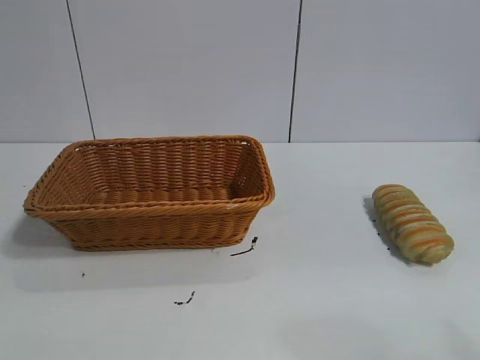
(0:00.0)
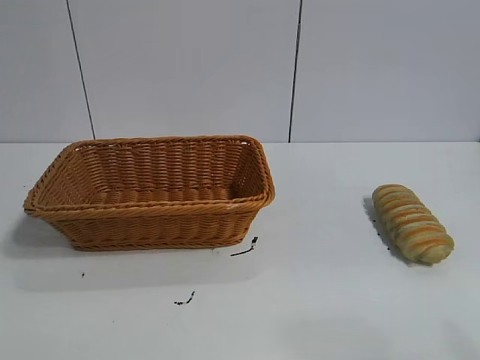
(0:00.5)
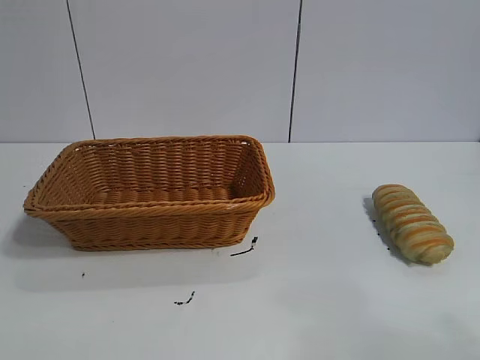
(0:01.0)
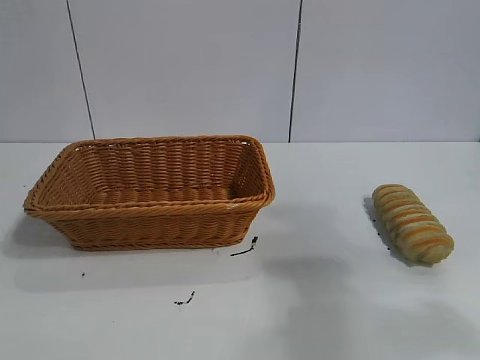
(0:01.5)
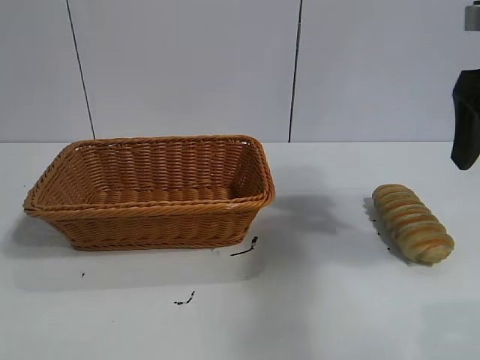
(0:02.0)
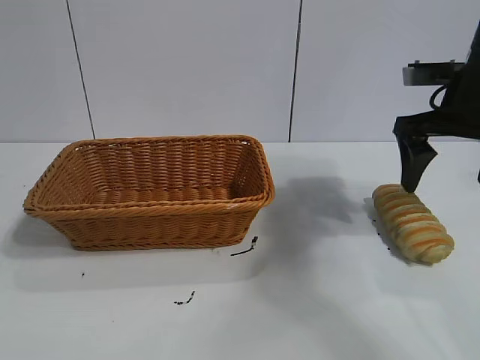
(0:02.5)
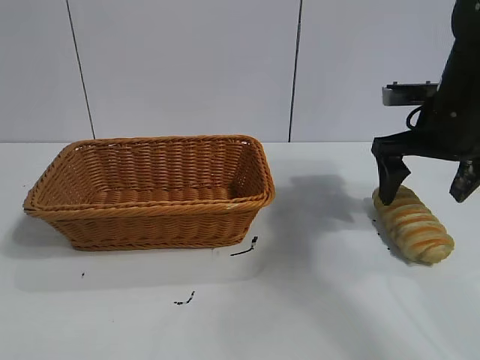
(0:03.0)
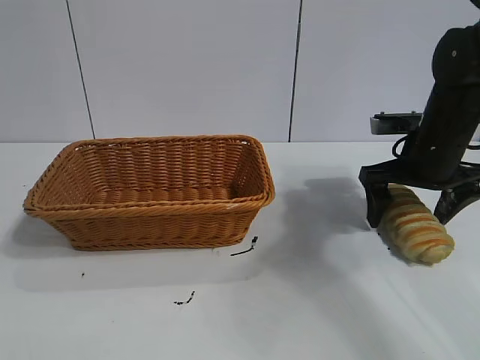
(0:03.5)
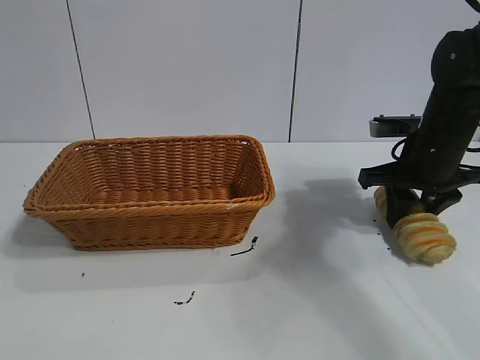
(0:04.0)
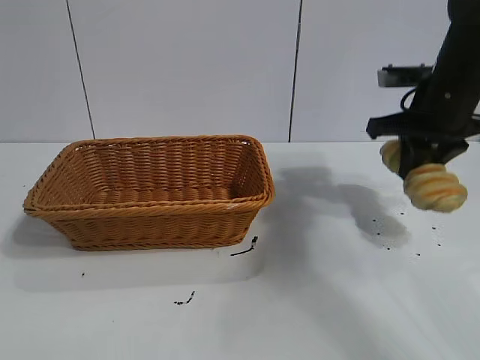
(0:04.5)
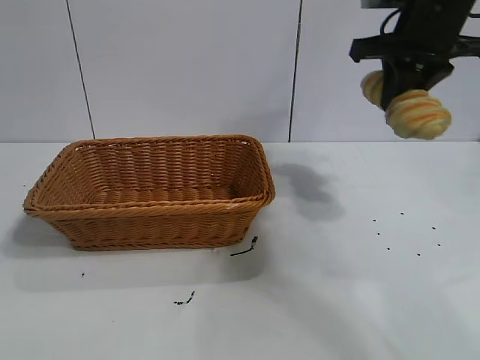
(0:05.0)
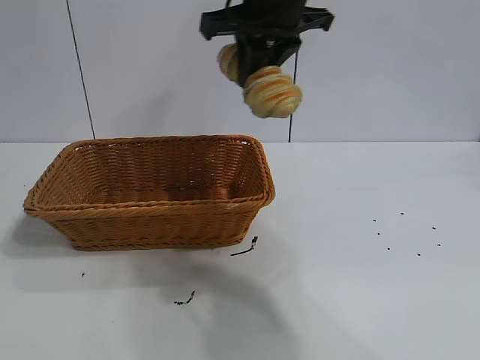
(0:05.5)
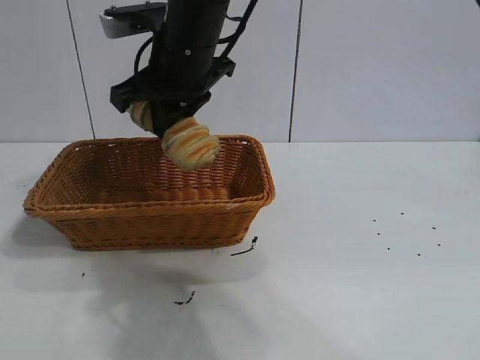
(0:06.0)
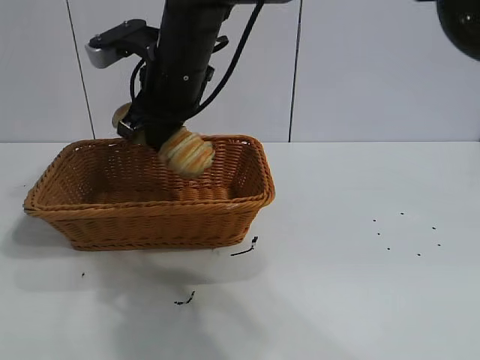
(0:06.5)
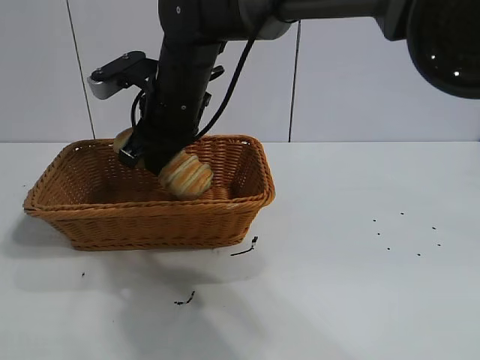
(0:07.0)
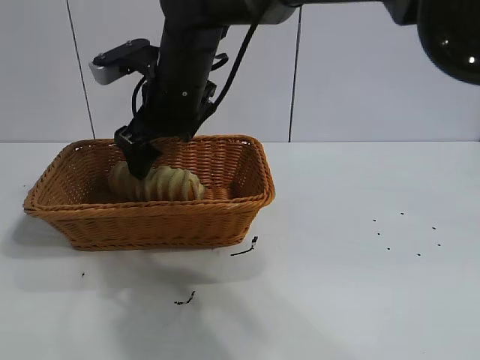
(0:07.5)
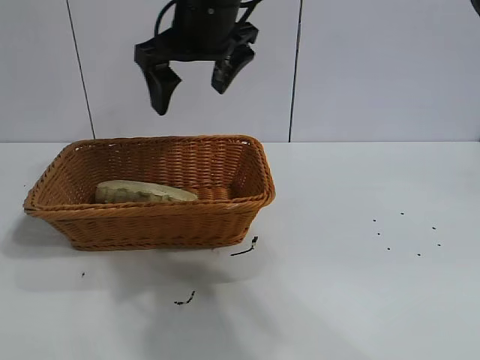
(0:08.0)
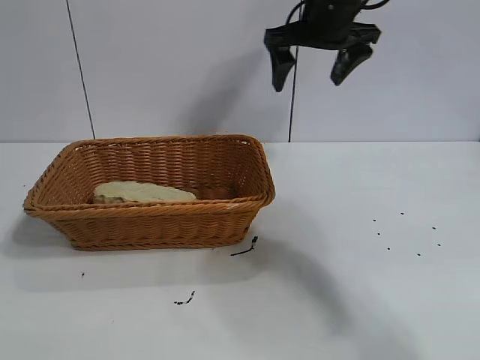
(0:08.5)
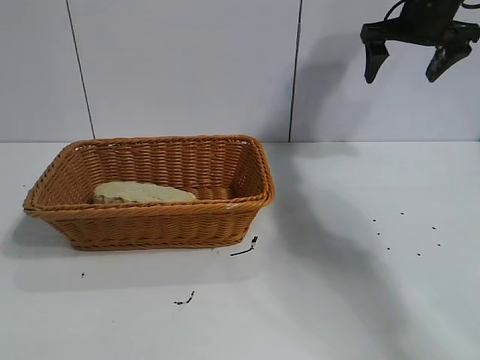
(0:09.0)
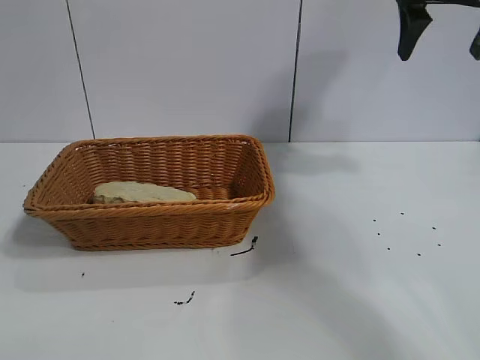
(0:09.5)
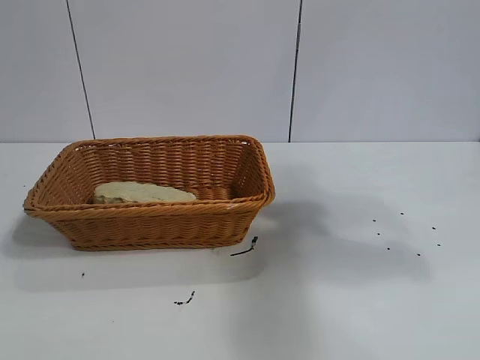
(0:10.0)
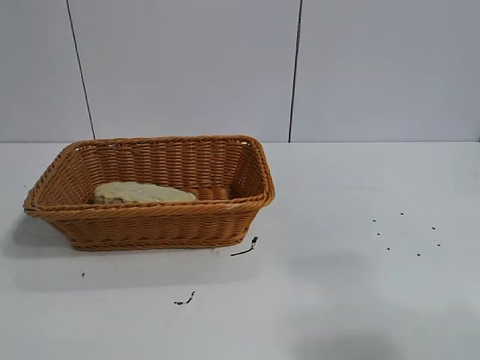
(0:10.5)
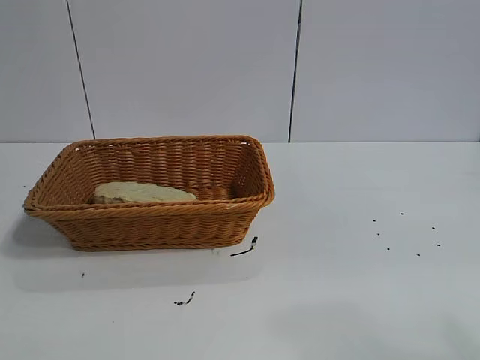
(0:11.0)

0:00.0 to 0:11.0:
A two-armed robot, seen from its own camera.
Task of the whole recording: pick up the long bread and put it into the basket.
Step, 0:02.0 to 0:04.0: Grasp the long bread with right gripper.
Step, 0:04.5 to 0:07.5: Place the long bread in the basket with right gripper.
